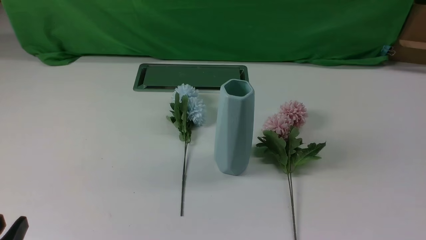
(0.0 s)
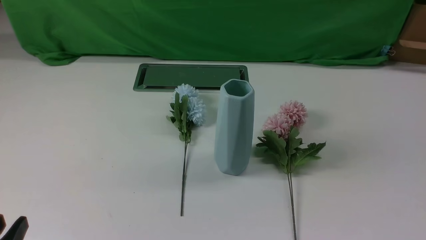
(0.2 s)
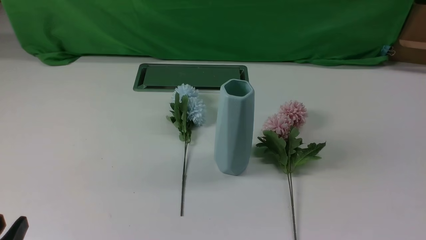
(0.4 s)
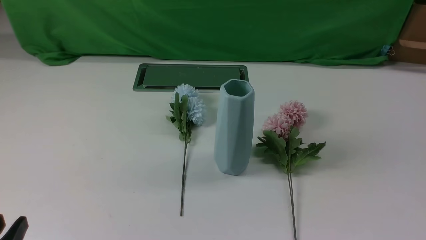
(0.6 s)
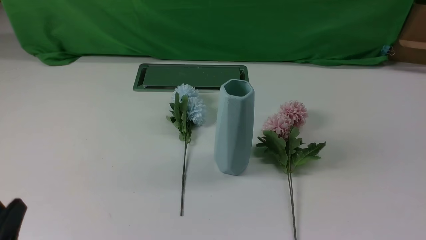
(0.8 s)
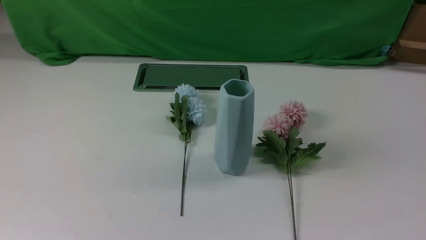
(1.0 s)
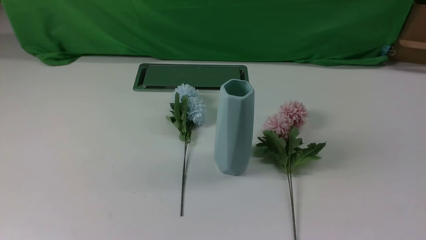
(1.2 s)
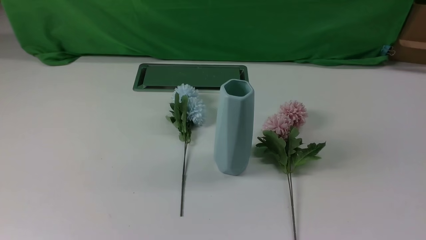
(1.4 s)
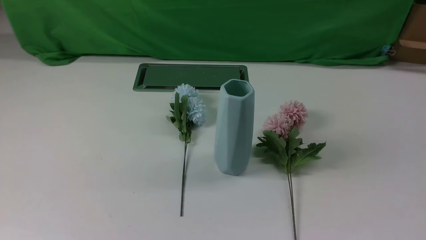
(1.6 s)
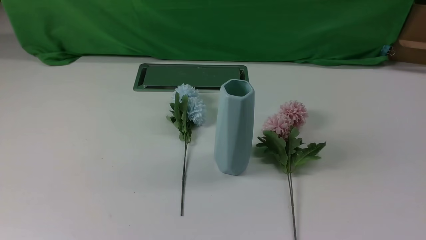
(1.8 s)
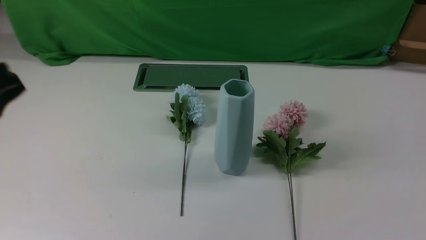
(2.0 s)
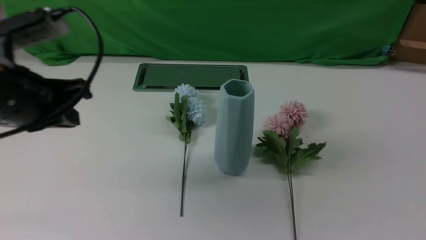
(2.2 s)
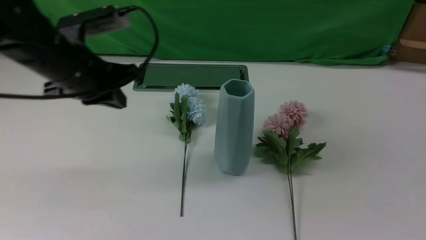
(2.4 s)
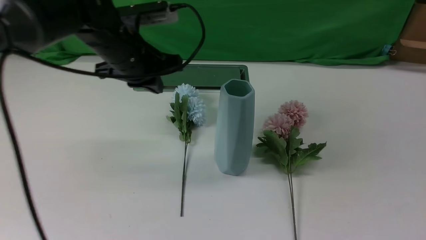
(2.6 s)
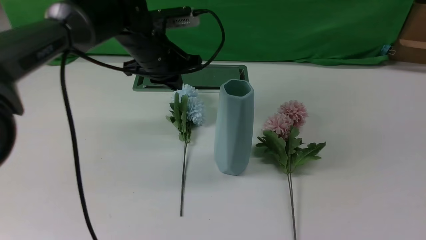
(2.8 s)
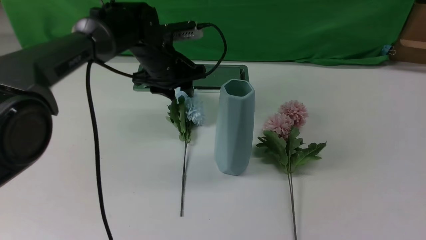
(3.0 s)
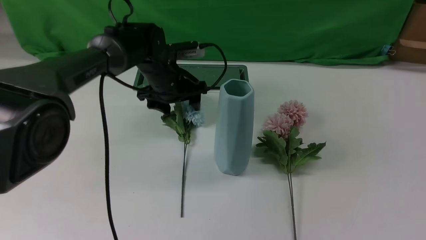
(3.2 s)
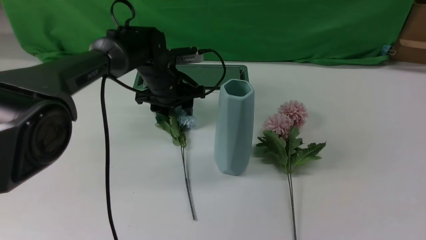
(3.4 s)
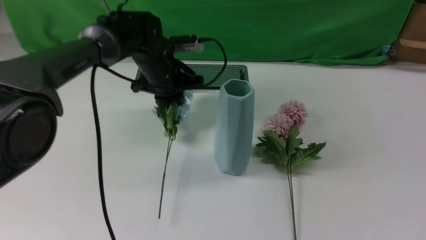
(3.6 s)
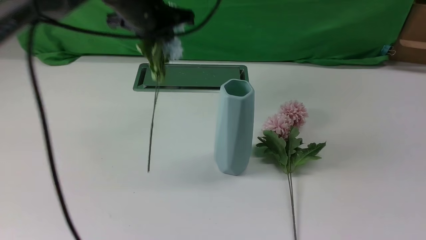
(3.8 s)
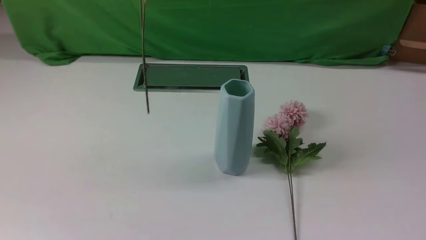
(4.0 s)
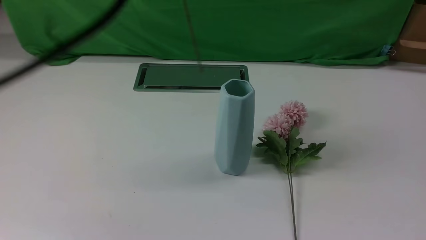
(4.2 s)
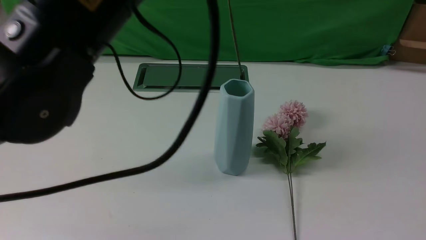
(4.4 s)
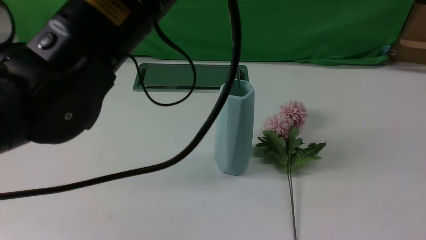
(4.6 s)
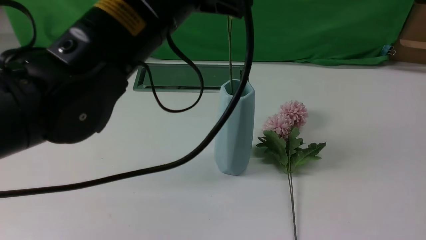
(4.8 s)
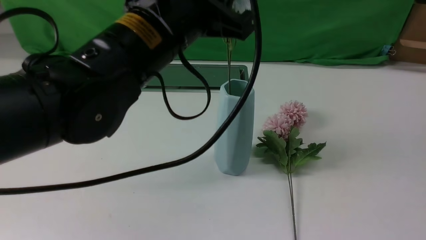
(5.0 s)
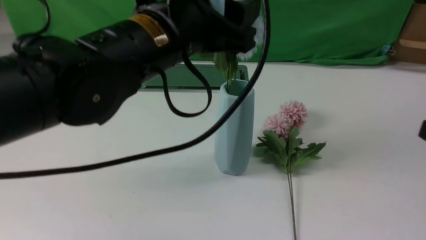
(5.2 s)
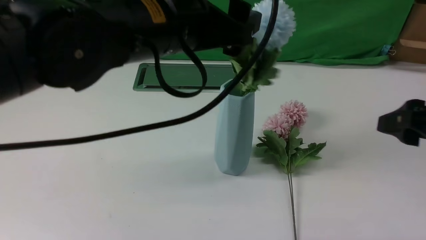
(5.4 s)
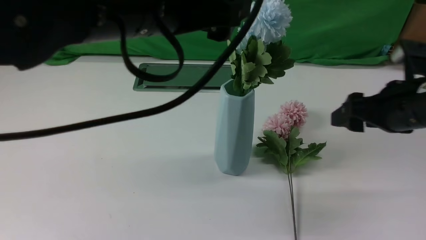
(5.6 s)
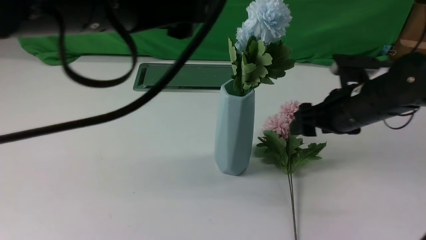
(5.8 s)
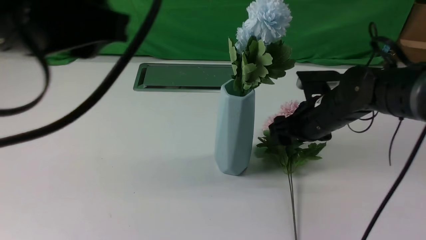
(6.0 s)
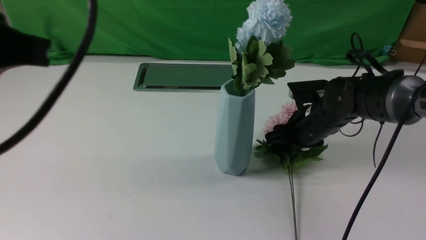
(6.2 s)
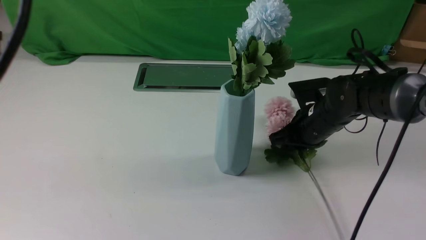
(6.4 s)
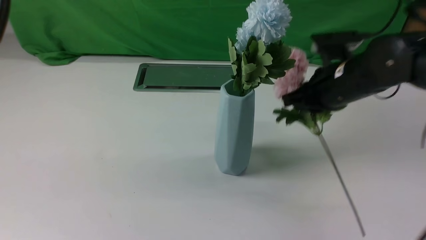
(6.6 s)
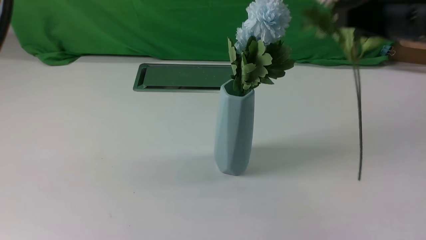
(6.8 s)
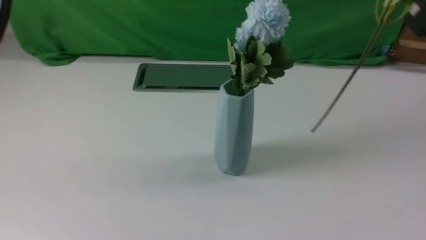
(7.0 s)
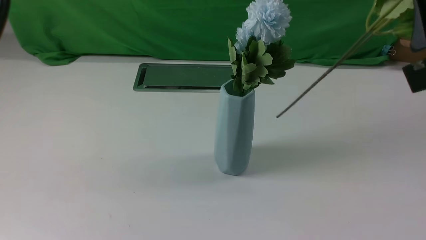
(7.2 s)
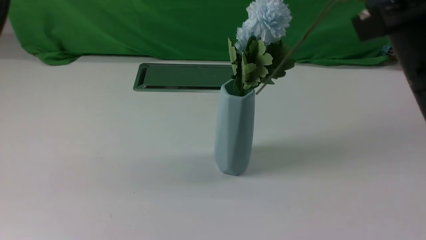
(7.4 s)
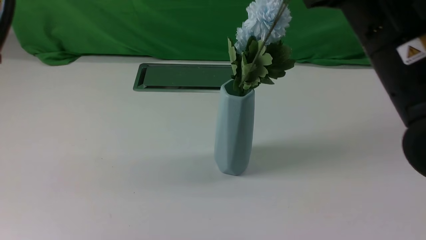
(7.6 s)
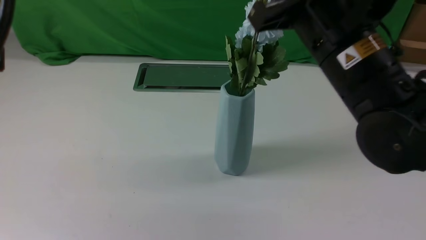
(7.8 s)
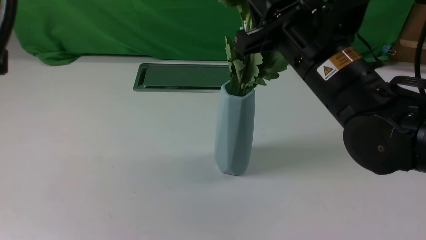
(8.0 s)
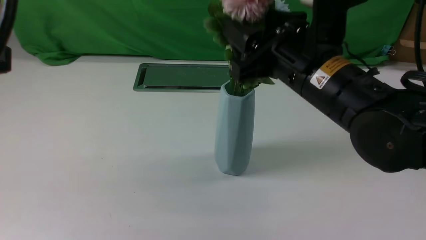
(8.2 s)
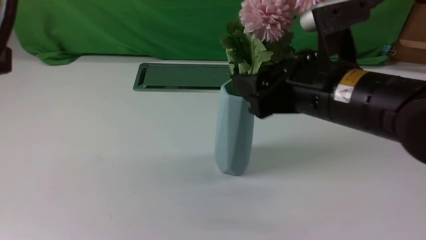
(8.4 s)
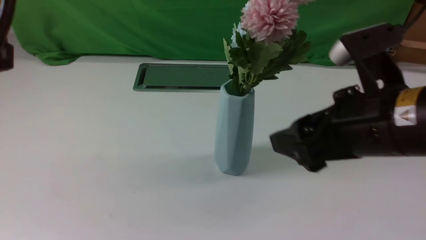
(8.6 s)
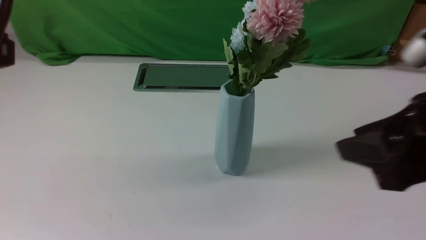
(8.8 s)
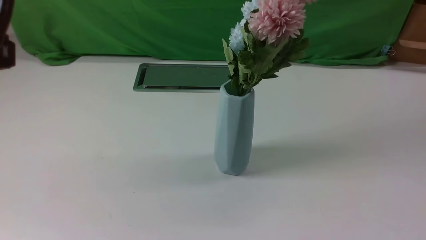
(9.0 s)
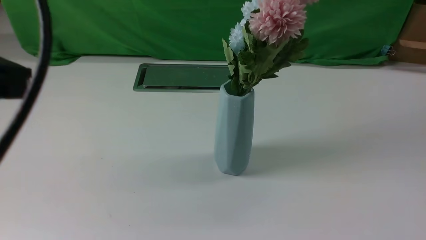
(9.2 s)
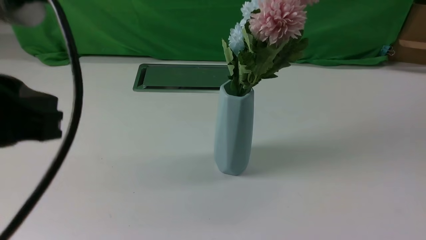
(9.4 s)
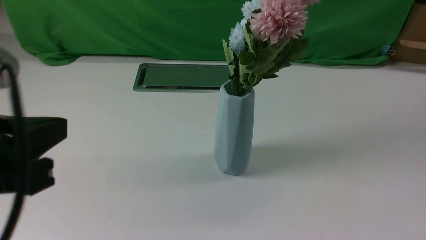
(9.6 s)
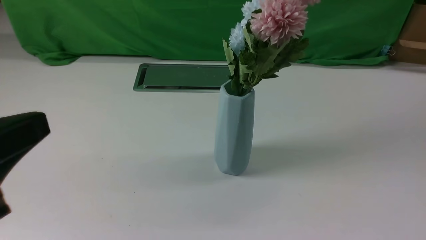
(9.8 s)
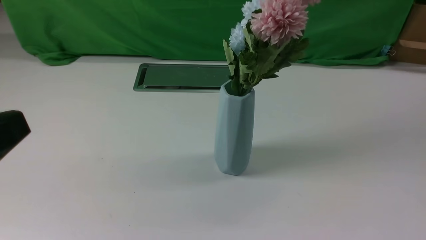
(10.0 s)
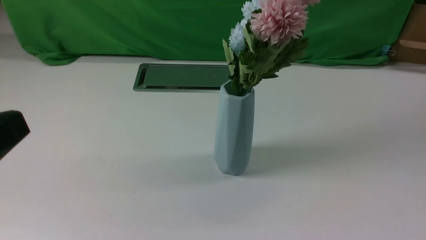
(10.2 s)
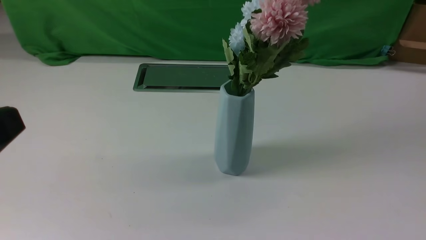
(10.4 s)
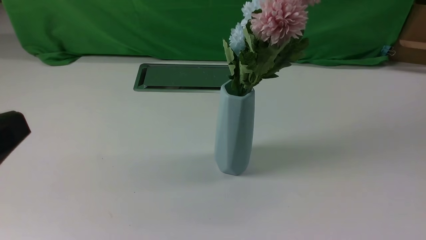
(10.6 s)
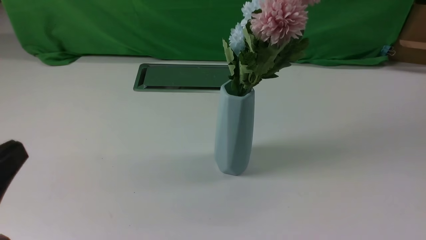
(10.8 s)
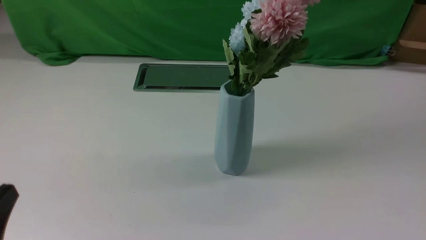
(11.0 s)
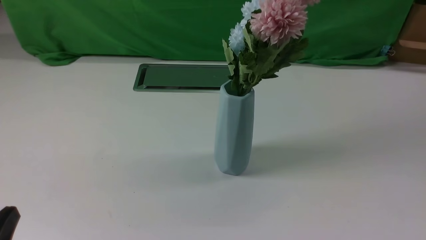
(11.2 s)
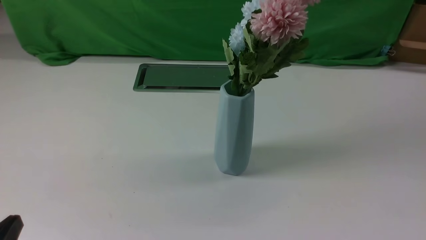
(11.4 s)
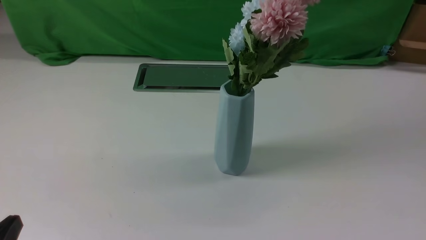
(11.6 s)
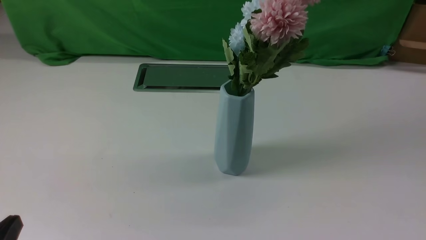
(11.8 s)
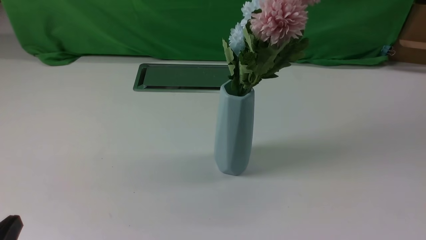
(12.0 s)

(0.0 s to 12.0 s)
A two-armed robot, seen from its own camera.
Task of the whole recording: insert the flowers into the vase on the white table.
Step, 0.0 s - 3.4 s: use the left arm to grab a bunch of fresh flowers.
Step, 3.6 s - 5.4 s: use the left arm to insert the flowers into the vase.
Step, 5.6 s - 6.4 s: use the right arm to grab a bunch of fresh flowers.
Step, 6.6 s - 8.4 s: use the right arm to insert the flowers into the vase.
1.6 s - 3.0 s: The left gripper travels forward by some 40 cm, and opens up; the right gripper is displaced upward by roughly 10 cm, and closes up.
3.0 s - 4.4 s: The left gripper goes approximately 30 cm upward and backward, and closes up.
4.4 s - 6.0 s: The right gripper goes roughly 35 cm forward, downward and to the left, and opens its fingers, while the left gripper moves backward and to the left, some 10 cm, and opens, then closes once more.
6.0 s - 7.6 s: The right gripper heads upward and backward, covering approximately 25 cm, and closes. Meanwhile the left gripper travels backward and to the left by approximately 10 cm, and closes.
7.6 s - 9.0 s: The right gripper travels backward and to the right by about 20 cm, and opens, then closes once more.
9.0 s - 10.4 s: The right gripper is displaced backward and to the right by roughly 10 cm; the left gripper is displaced downward and backward by some 10 cm.
10.4 s - 12.0 s: The left gripper travels downward by about 15 cm.

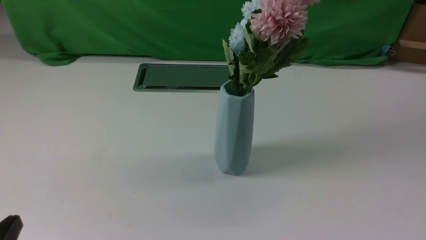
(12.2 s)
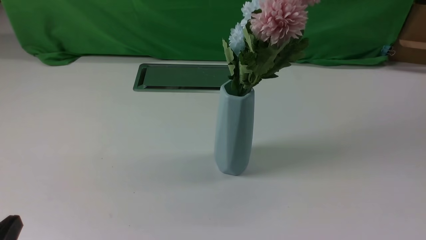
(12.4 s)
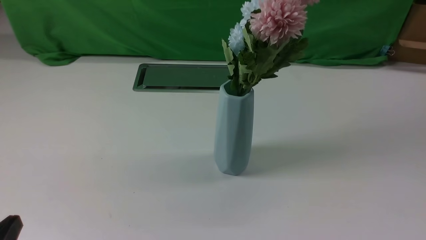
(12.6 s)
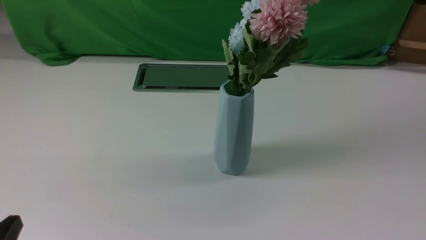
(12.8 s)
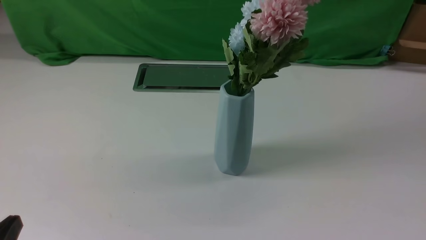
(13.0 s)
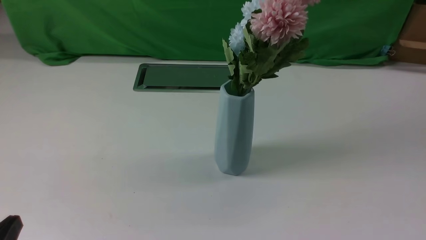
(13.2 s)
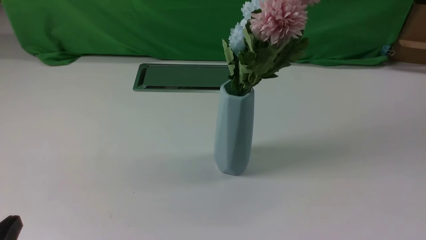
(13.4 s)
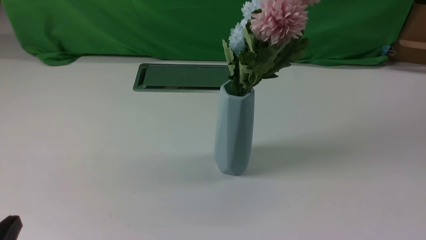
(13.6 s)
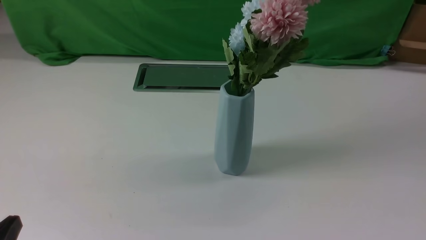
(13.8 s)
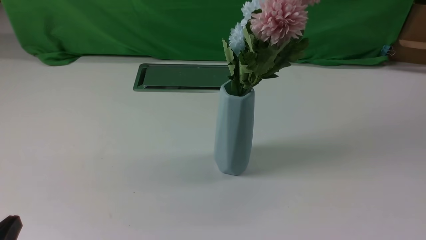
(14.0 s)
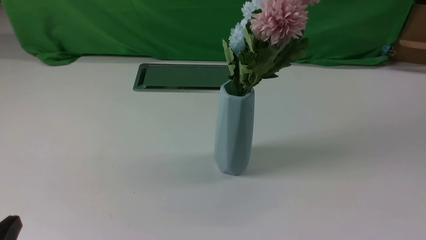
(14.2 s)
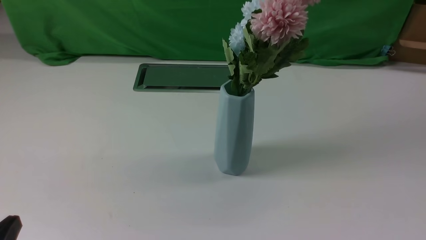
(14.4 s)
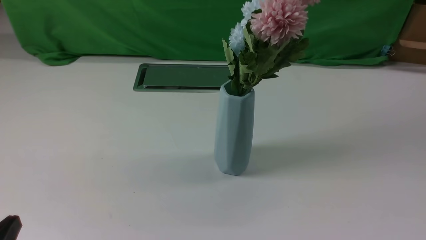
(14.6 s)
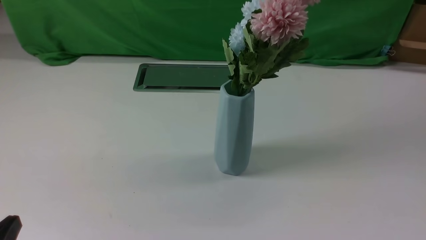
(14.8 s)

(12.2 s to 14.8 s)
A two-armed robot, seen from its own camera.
Task of the whole recording: insert the flowers into the vase on the white table.
13.4 s - 14.8 s: Neither gripper changes place.
